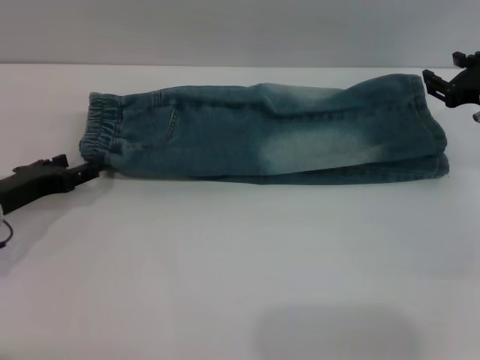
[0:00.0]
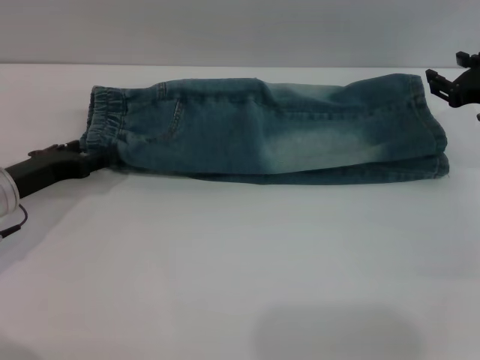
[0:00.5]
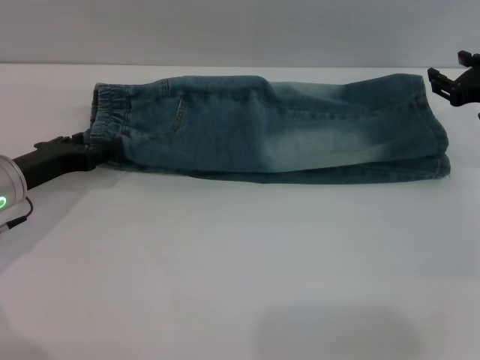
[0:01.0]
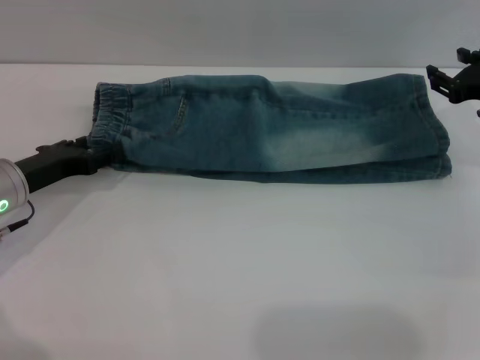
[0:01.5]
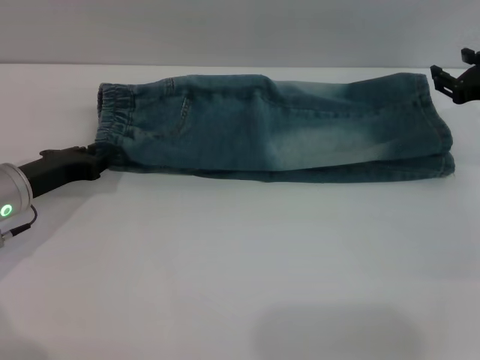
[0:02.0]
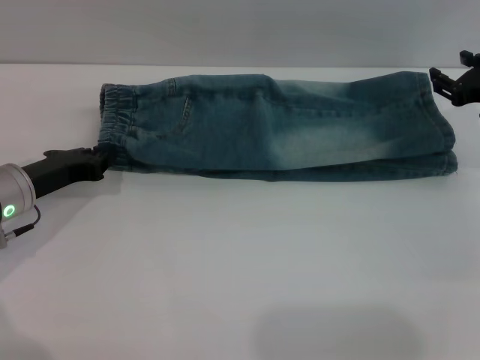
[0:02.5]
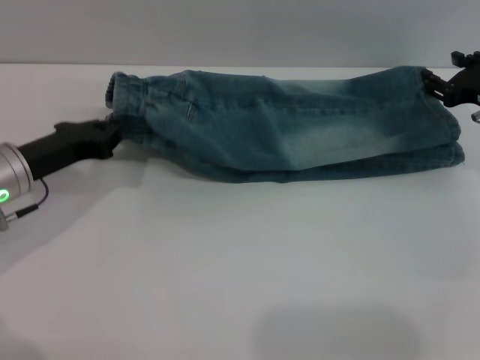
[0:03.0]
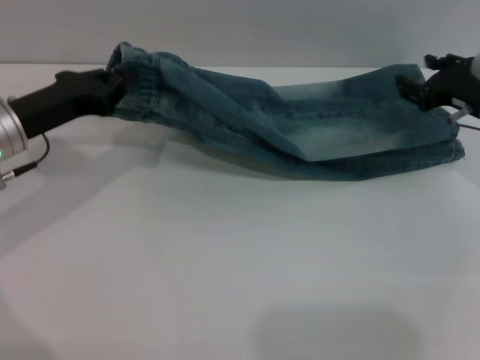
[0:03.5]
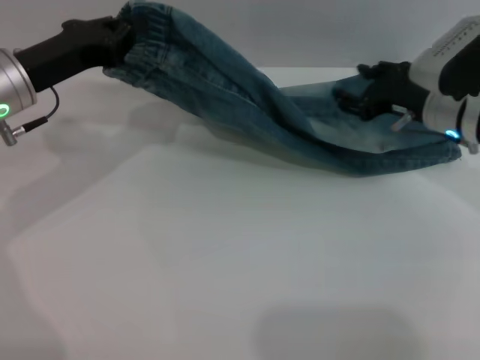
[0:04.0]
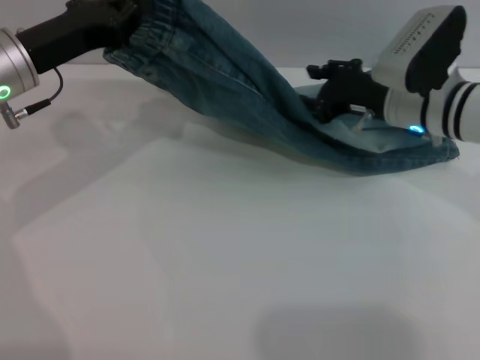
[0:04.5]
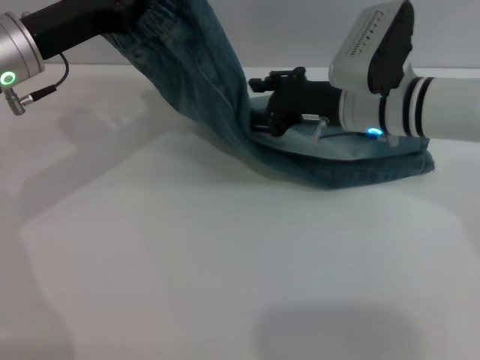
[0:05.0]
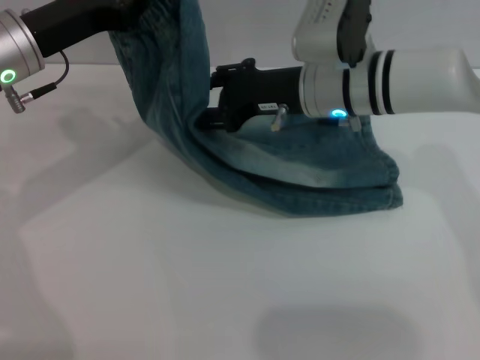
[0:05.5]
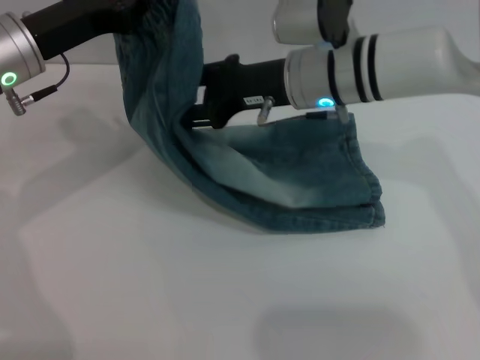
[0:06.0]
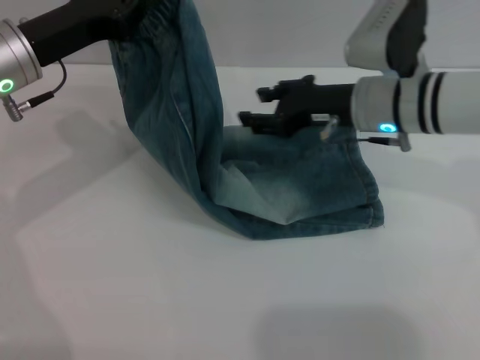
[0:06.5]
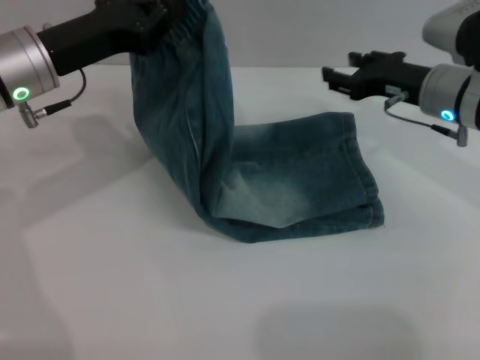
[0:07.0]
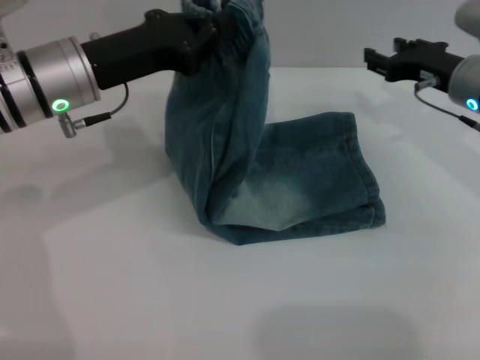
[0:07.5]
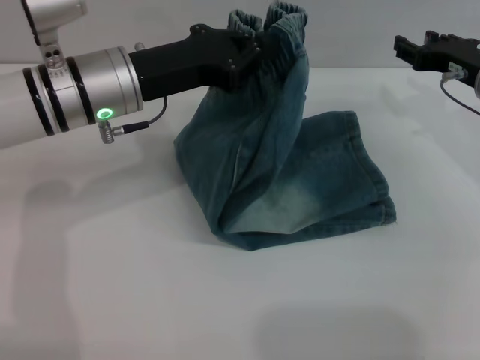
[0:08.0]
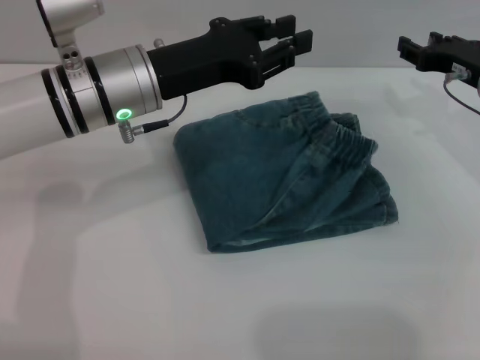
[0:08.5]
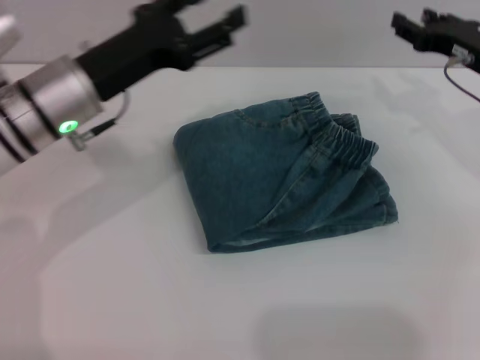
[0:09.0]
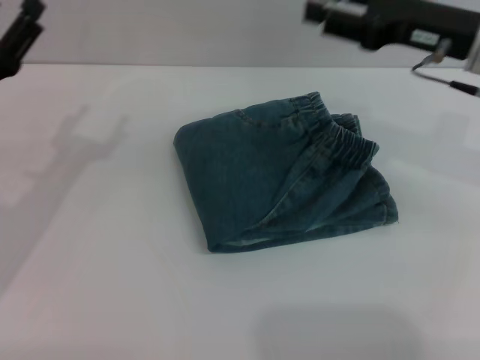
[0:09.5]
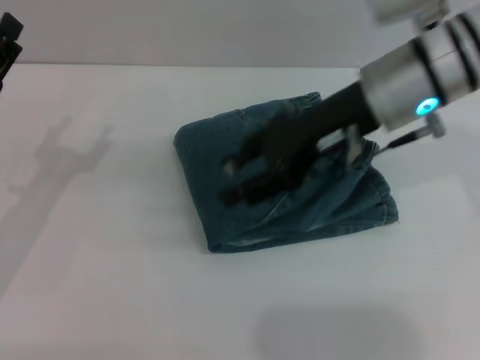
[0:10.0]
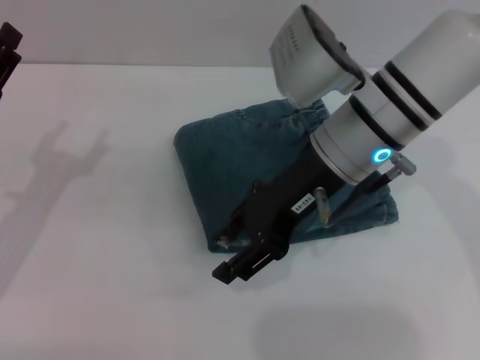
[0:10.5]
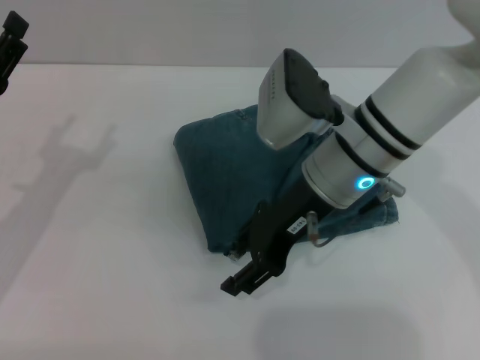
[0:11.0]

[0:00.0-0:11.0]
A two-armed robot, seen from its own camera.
Step, 0:00.0 to 0:09.0: Fold the pants from left to right with the left gripper.
0:00.0 to 0:02.0: The left gripper closes.
0:02.0 to 0:03.5: The left gripper goes some 5 cm upward, and closes.
0:03.5 to 0:05.5: The right gripper travels to the left by about 20 cm. Meanwhile the left gripper travels upward by some 5 cm.
0:05.5 to 0:07.5: The right gripper is displaced to the right by roughly 15 cm, while the left gripper changes place by roughly 5 cm.
0:07.5 to 0:09.0: The left gripper opens.
0:09.0 to 0:11.0: The left gripper heads to the left, backward and downward, covering some 15 cm, while the right gripper is displaced to the left by about 20 cm.

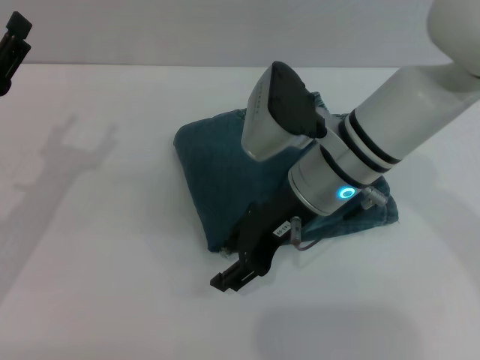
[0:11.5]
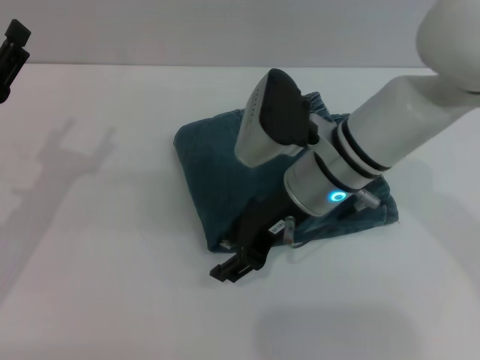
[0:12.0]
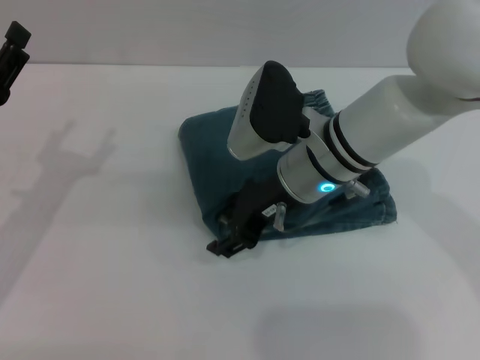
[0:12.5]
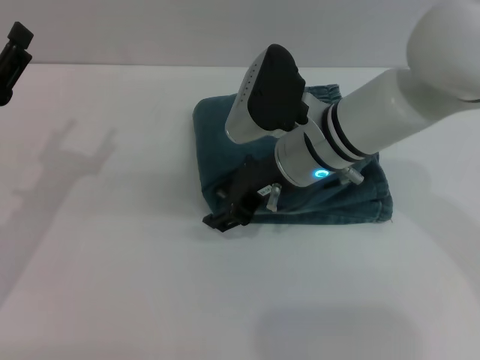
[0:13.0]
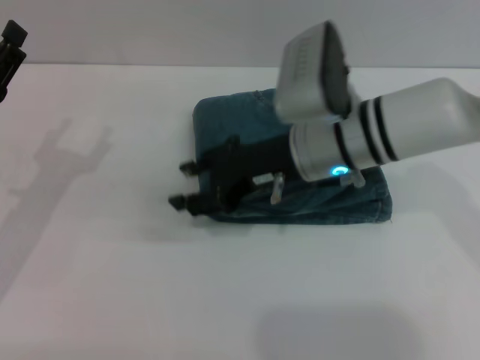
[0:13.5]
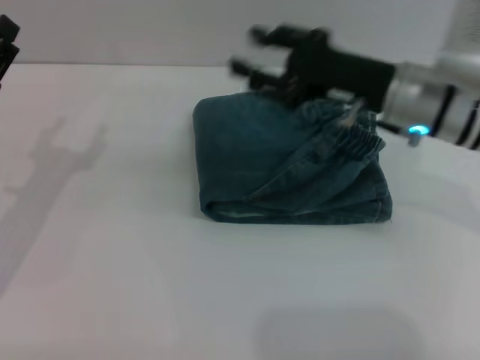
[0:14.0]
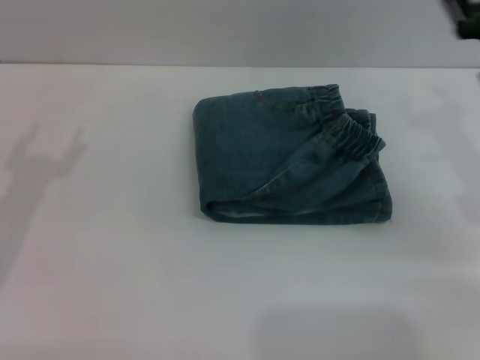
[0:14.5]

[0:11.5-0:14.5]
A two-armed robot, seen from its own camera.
0:11.5 to 0:13.0: The grippers stay close to where they were, moving slightly.
0:13.0 to 0:14.5: The right gripper heads to the right, covering some 20 cm.
